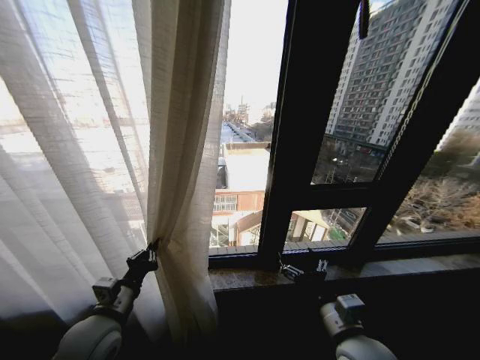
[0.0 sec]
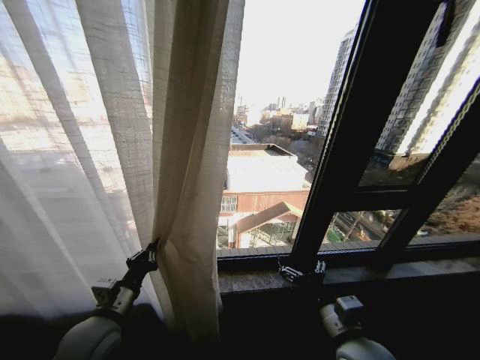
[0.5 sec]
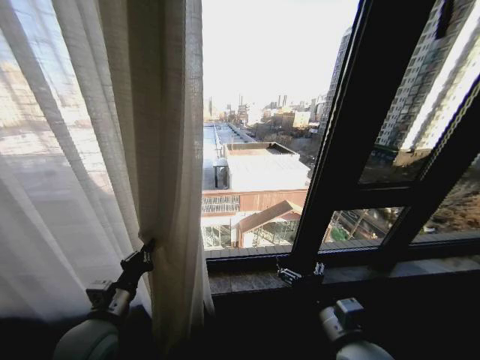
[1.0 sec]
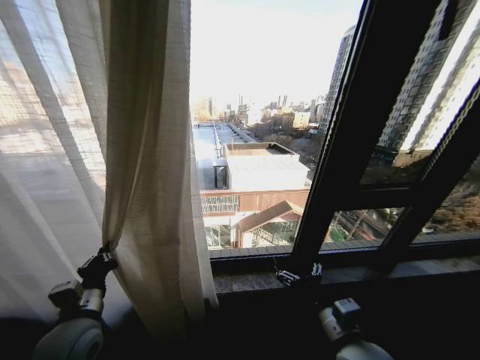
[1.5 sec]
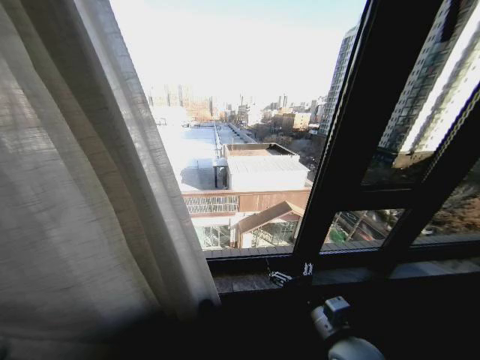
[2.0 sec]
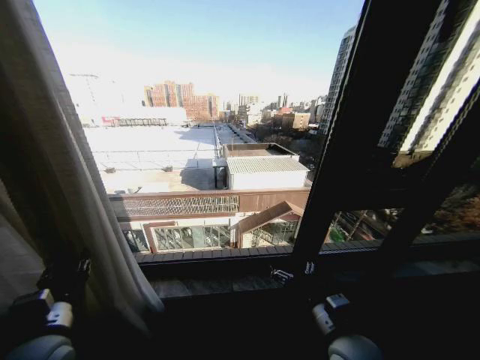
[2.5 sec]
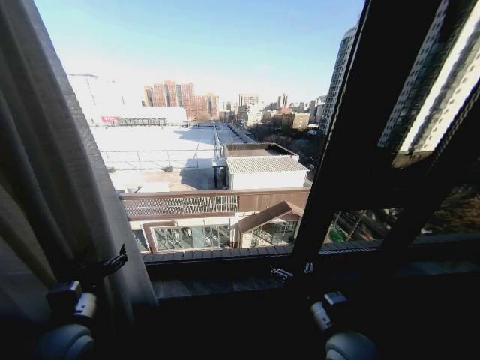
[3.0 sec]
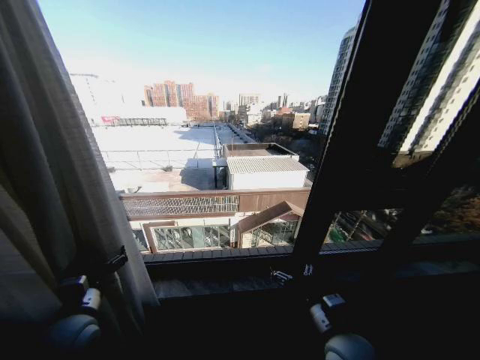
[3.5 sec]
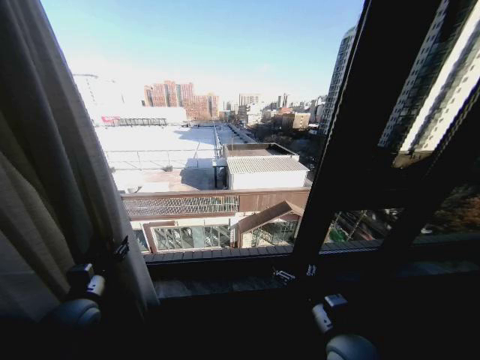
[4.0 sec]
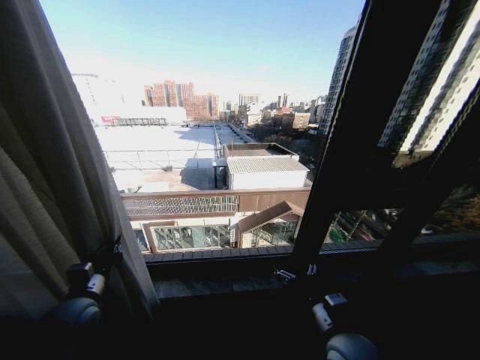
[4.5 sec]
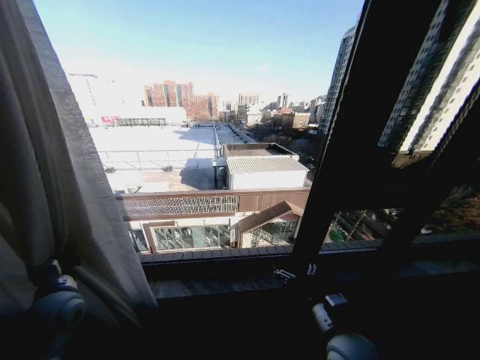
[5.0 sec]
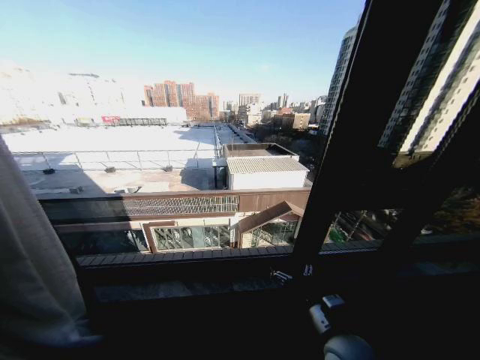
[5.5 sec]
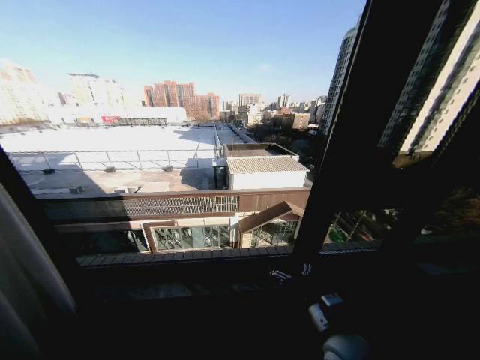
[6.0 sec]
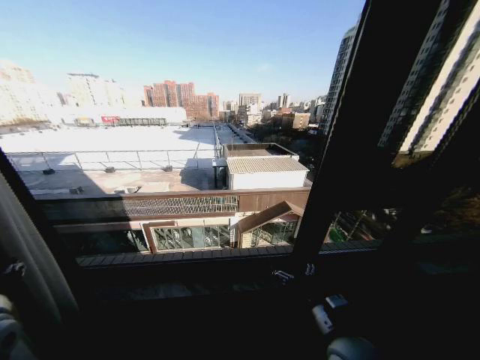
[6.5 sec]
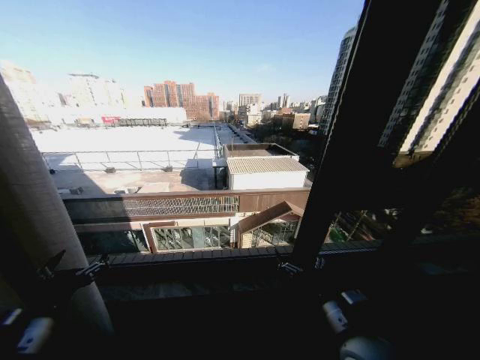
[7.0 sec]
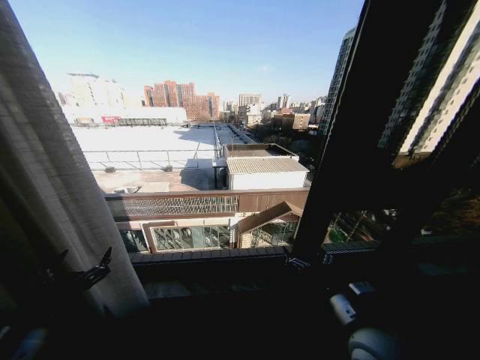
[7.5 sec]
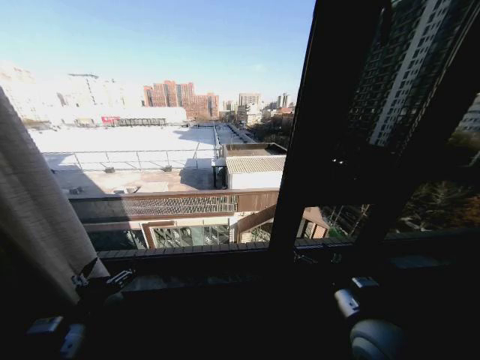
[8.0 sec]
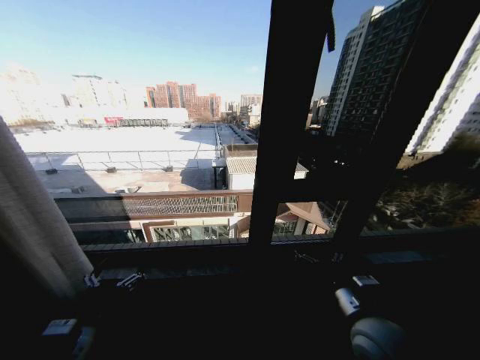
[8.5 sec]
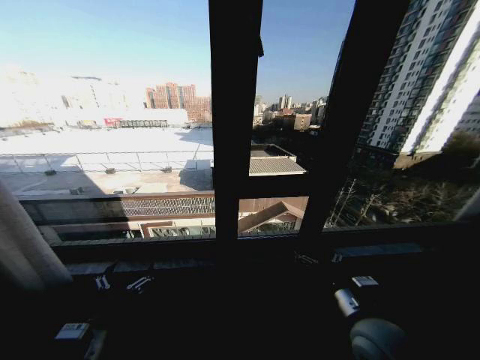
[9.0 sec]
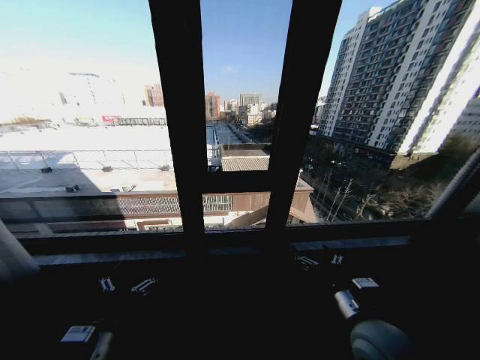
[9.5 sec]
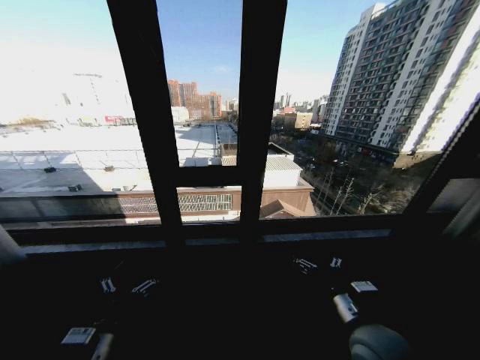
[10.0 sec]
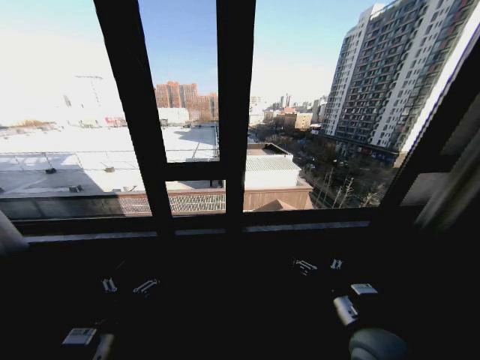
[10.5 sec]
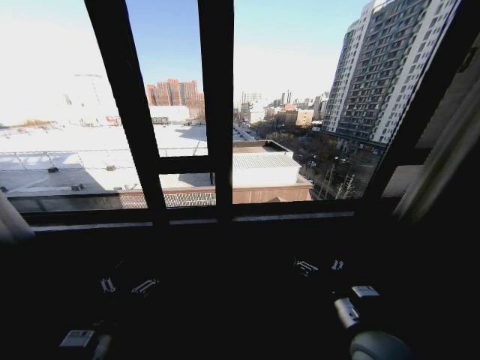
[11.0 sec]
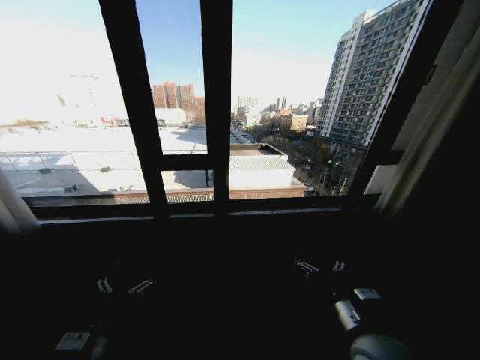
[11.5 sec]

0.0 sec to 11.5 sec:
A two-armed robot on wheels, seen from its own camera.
Task of the whole recording: Open the curtains by pulling them apart, changing their state from closed to fully open.
0.0 sec to 2.0 sec: The left gripper moves to the left, about 20 cm.
2.0 sec to 4.0 sec: The left gripper moves to the right and forward, approximately 15 cm, and opens up.
4.0 sec to 6.0 sec: The left gripper heads to the left, covering about 25 cm, and closes up.
6.0 sec to 7.5 sec: The left gripper is displaced to the right and backward by about 30 cm, and opens its fingers. Meanwhile the right gripper travels upward by about 5 cm.
7.5 sec to 9.5 sec: The left gripper heads to the right, covering some 10 cm.

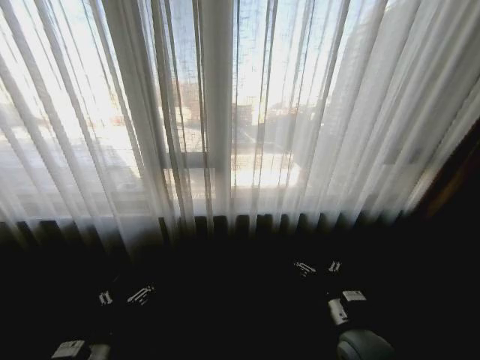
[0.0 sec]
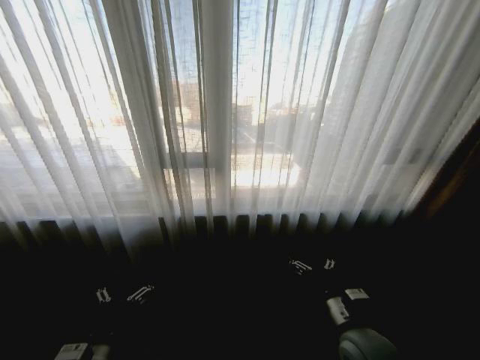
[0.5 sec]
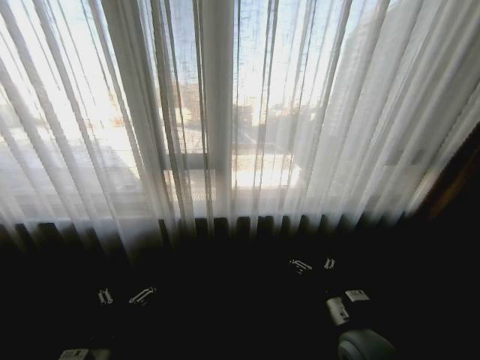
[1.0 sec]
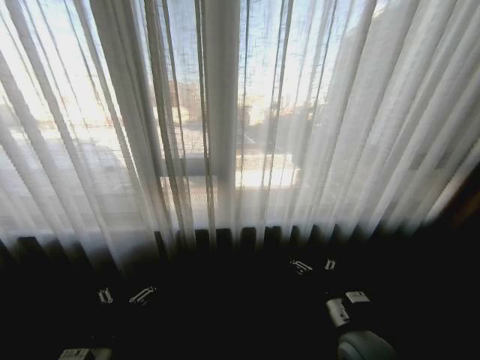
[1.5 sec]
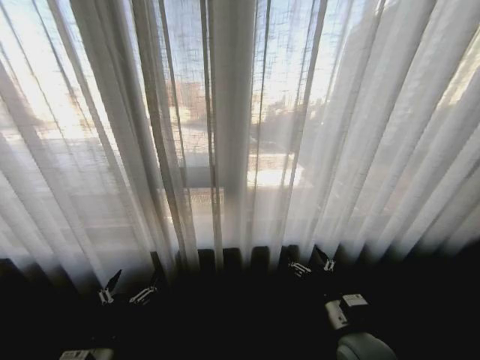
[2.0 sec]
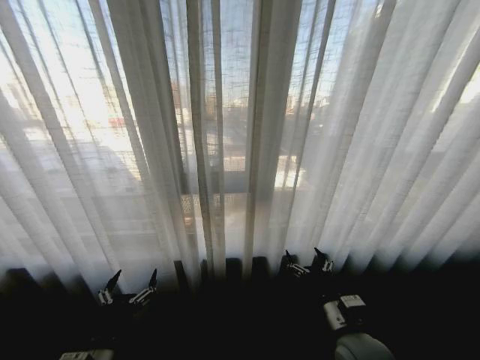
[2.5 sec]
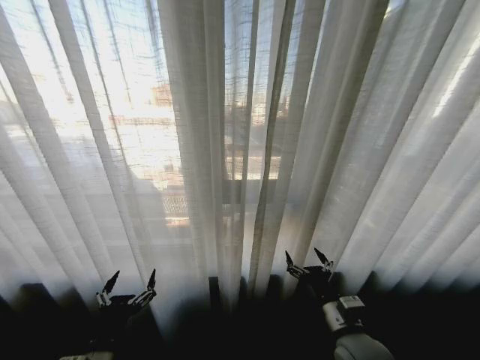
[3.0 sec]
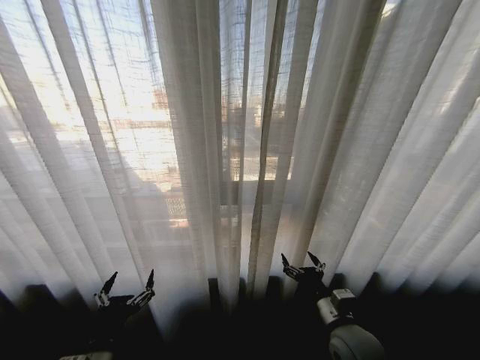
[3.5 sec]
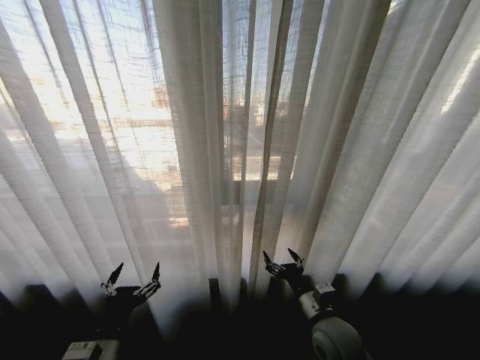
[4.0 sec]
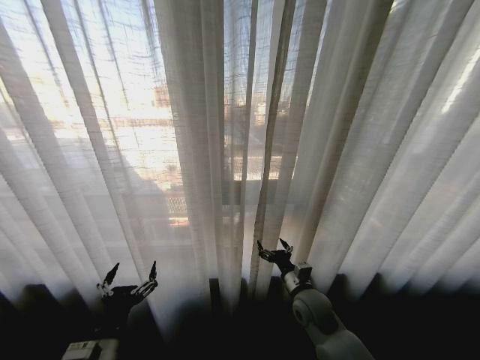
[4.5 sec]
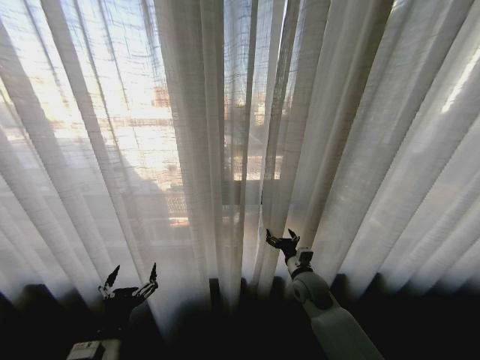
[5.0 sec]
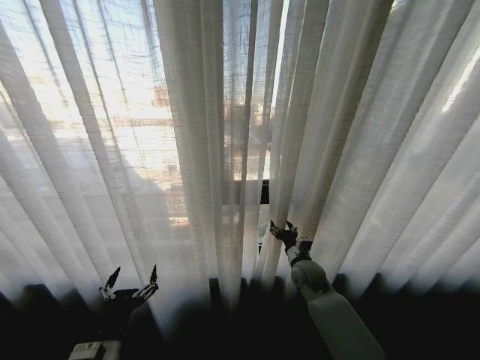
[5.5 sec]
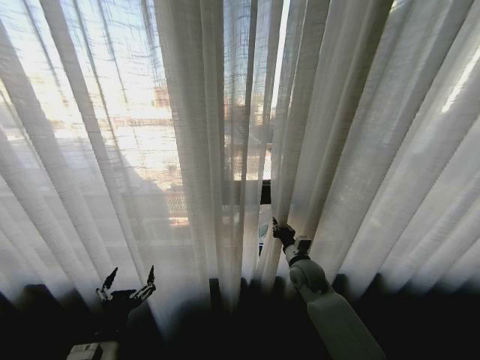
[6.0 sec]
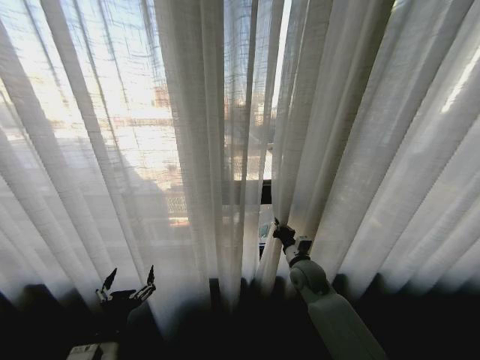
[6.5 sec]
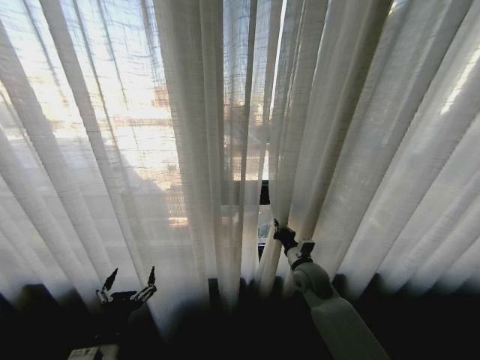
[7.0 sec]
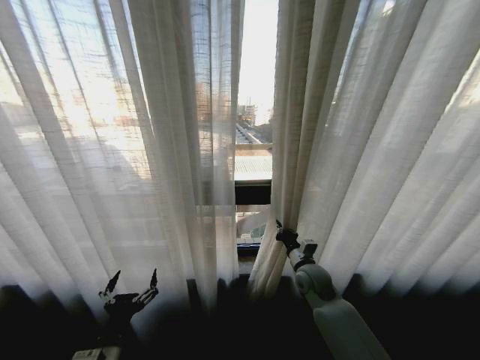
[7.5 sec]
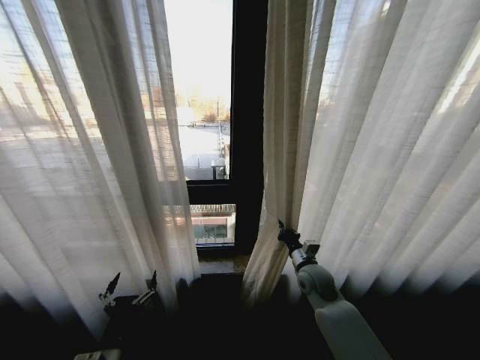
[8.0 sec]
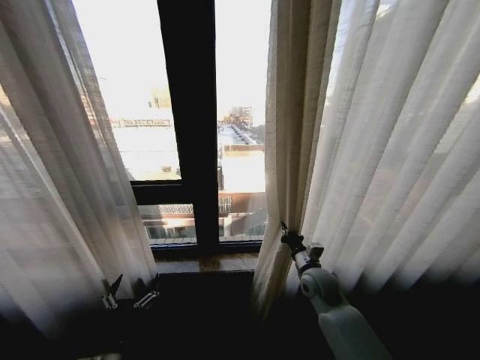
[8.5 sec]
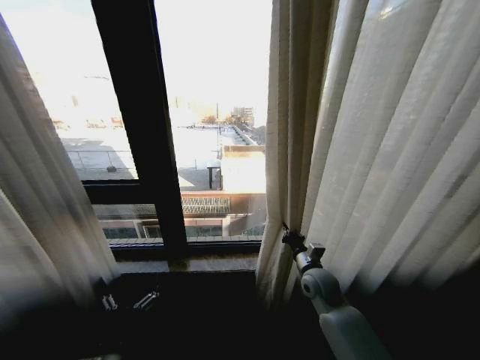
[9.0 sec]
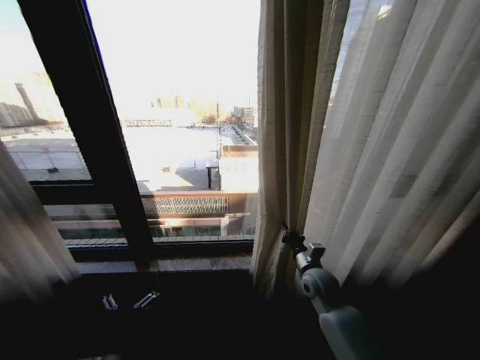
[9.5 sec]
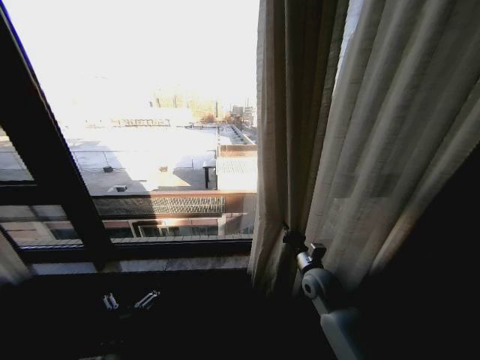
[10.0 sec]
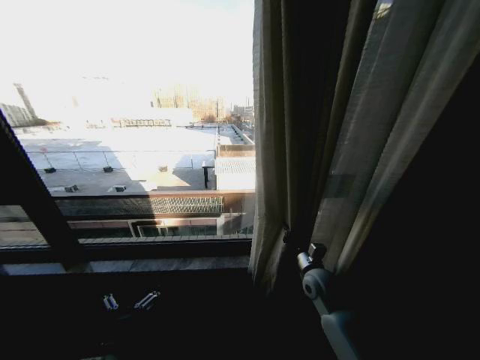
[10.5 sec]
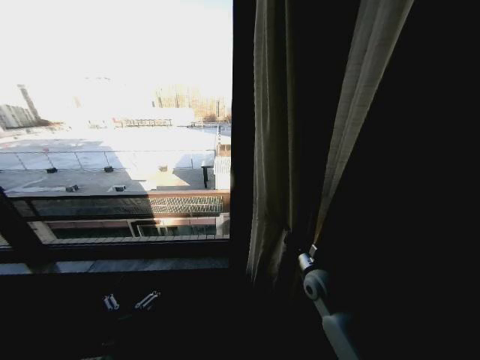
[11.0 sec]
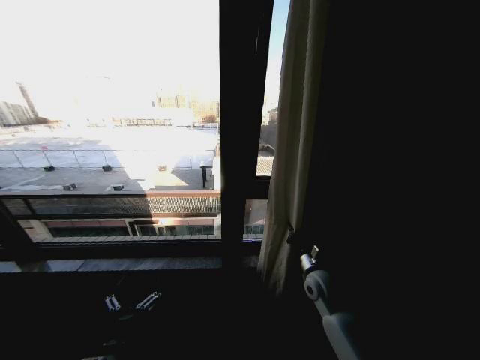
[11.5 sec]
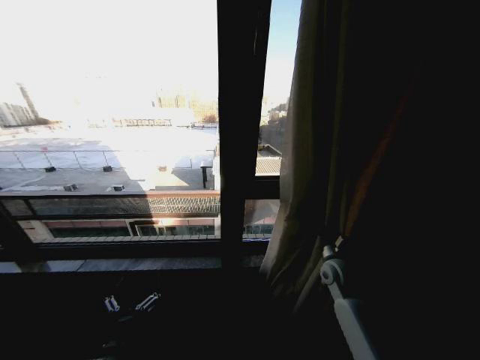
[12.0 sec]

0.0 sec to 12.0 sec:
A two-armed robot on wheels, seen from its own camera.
Task of the whole recording: Open the curtains by pulling them apart, changing their state from closed to fully open.
2.0 sec to 4.0 sec: The right gripper ends up about 5 cm from where it was.
4.0 sec to 6.0 sec: The right gripper heads forward, covering some 15 cm, and closes.
10.0 sec to 12.0 sec: The right gripper goes some 5 cm to the right.

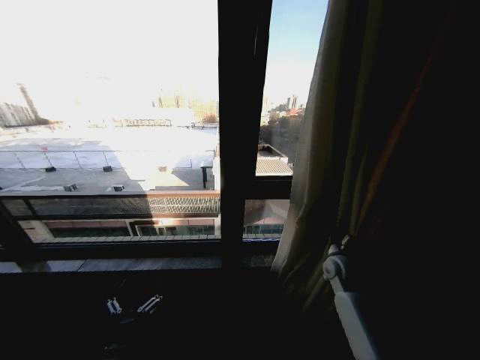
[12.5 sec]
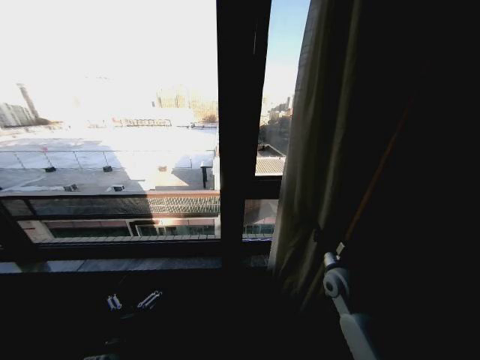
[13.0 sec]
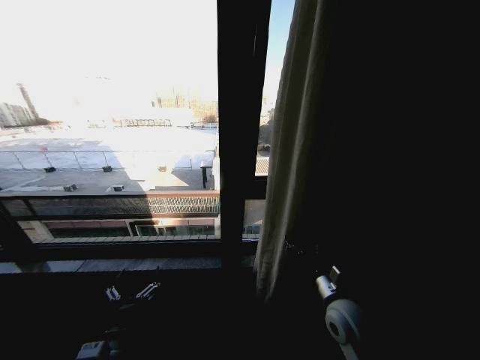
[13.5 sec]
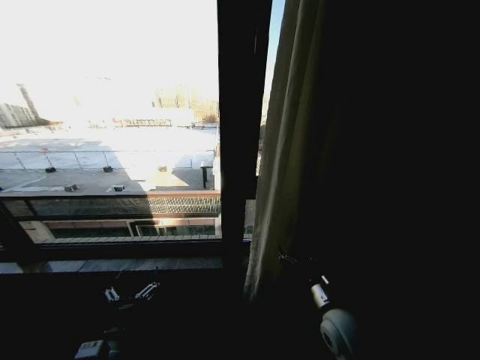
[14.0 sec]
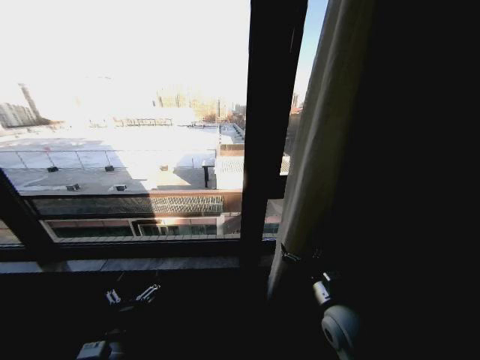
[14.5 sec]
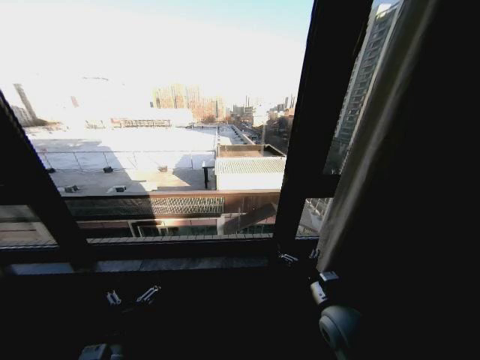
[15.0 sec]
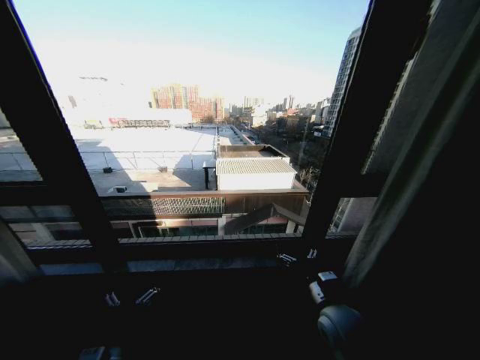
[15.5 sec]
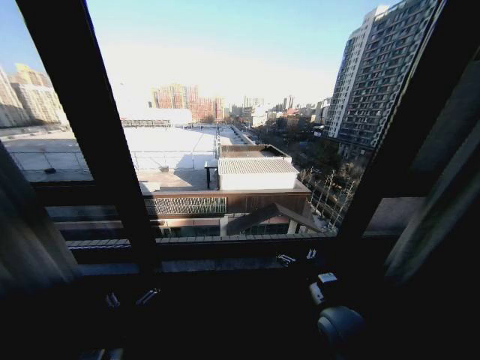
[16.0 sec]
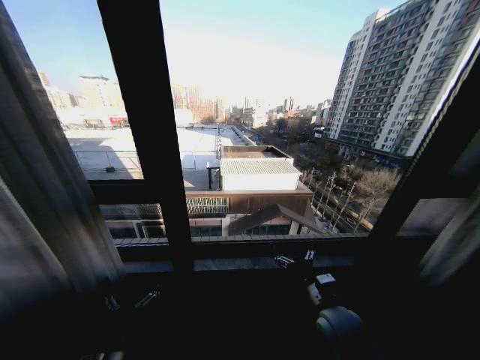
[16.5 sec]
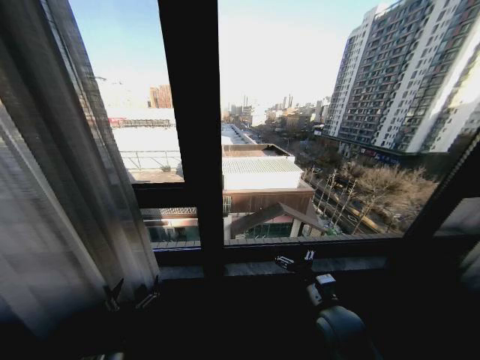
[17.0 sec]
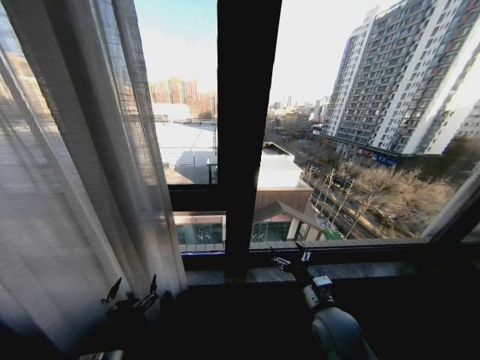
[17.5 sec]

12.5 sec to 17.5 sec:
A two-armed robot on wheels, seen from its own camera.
Task of the whole recording: Open the curtains by pulling them apart, changing their state from closed to fully open.
12.5 sec to 15.0 sec: The right gripper travels backward and to the left by some 20 cm, and opens up.
